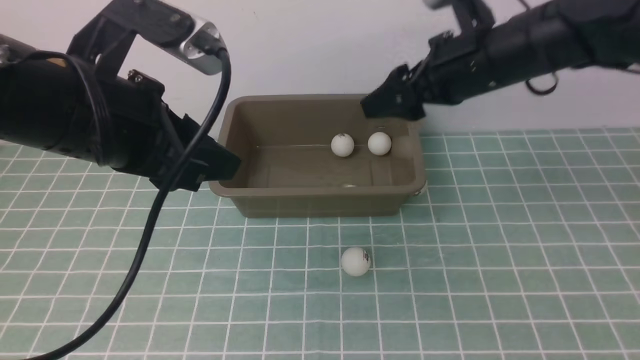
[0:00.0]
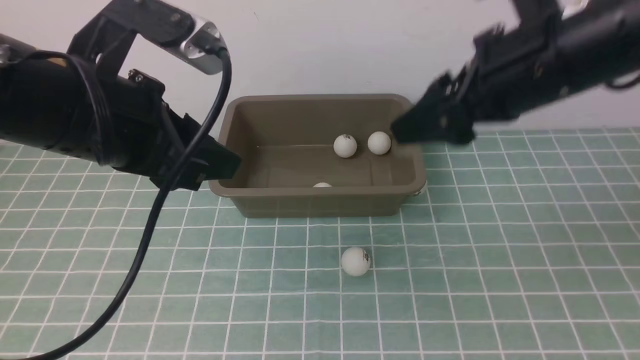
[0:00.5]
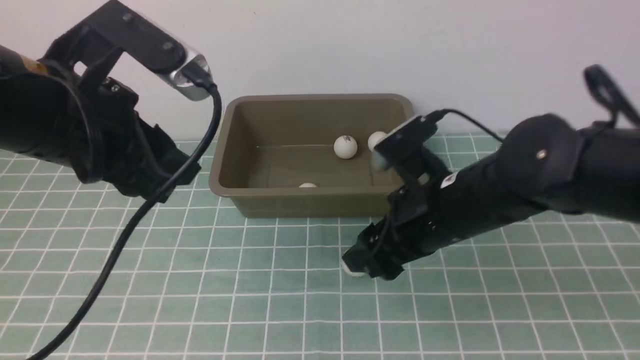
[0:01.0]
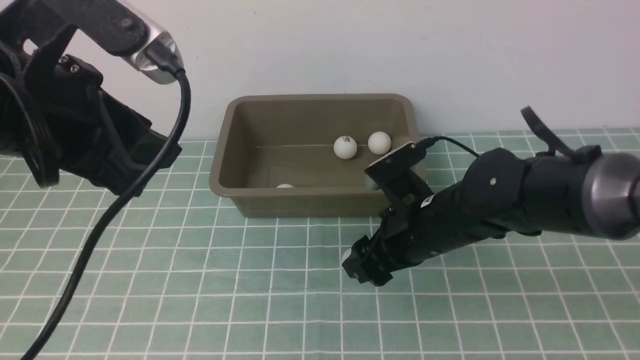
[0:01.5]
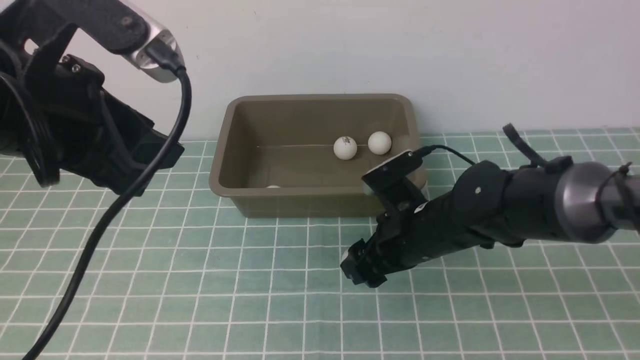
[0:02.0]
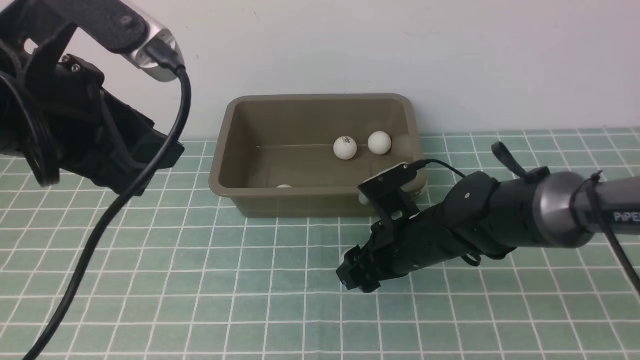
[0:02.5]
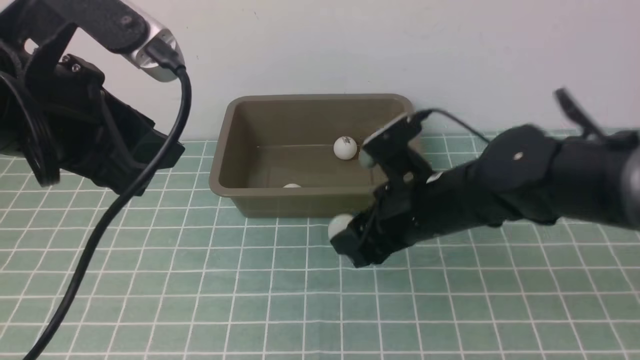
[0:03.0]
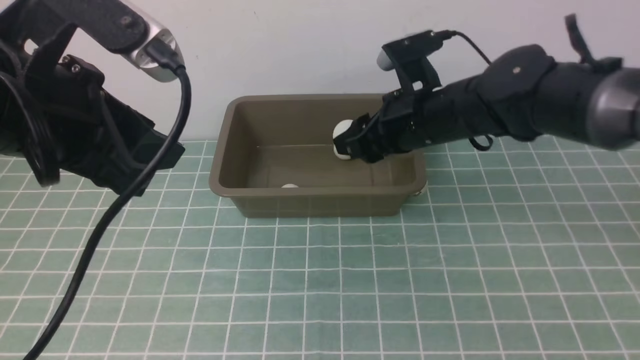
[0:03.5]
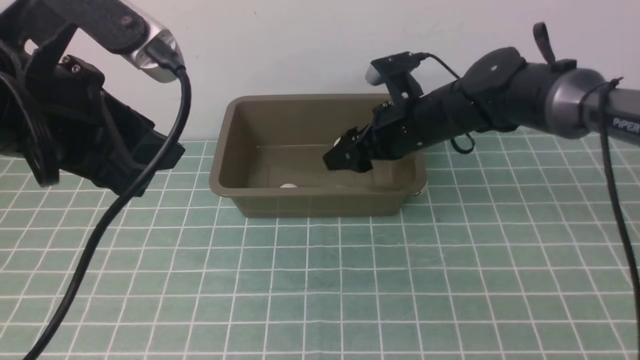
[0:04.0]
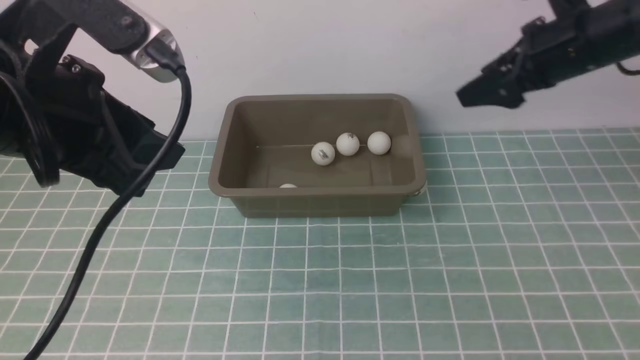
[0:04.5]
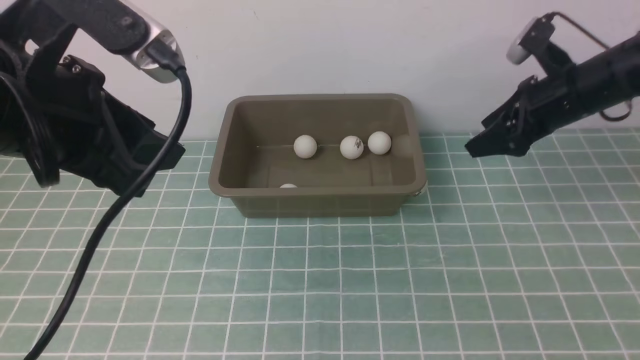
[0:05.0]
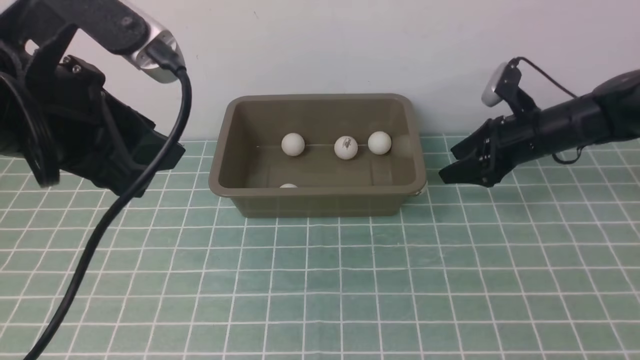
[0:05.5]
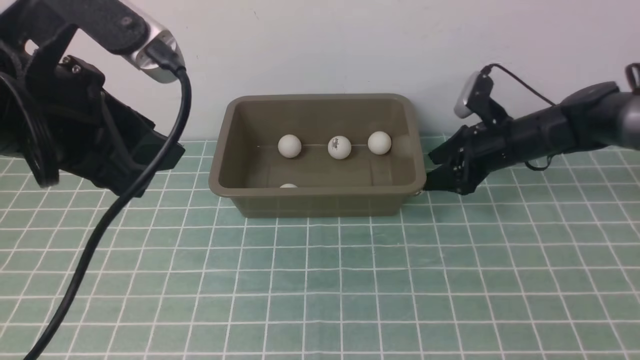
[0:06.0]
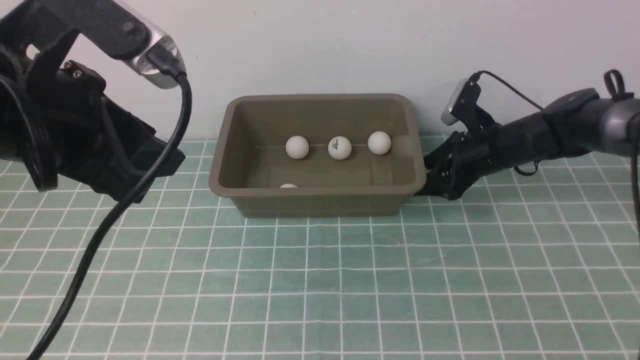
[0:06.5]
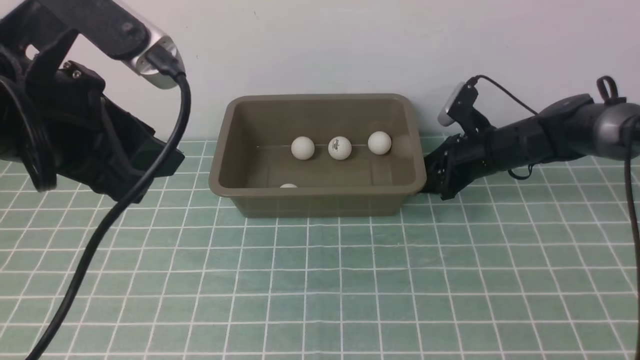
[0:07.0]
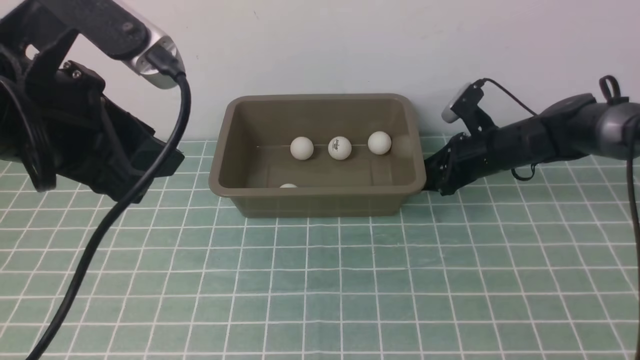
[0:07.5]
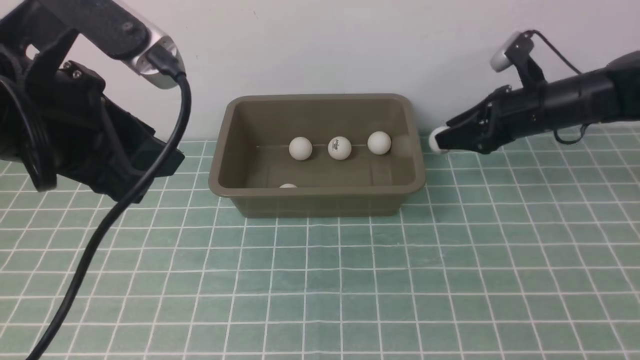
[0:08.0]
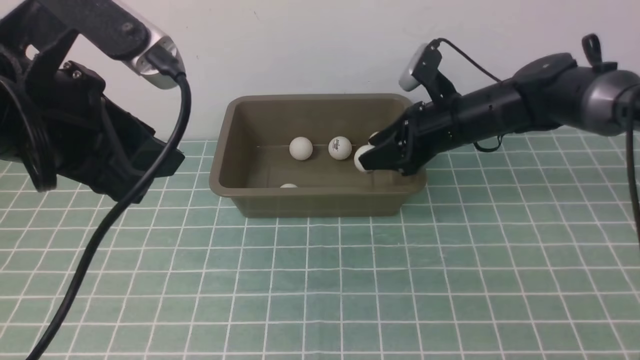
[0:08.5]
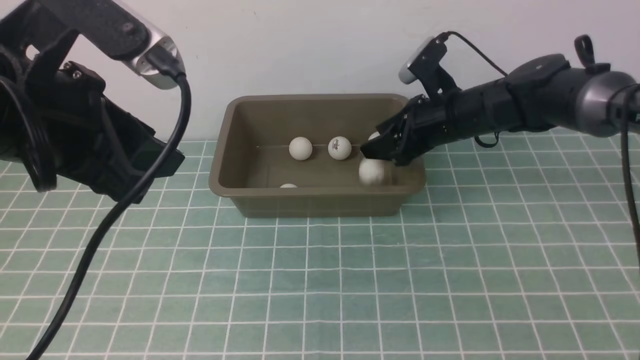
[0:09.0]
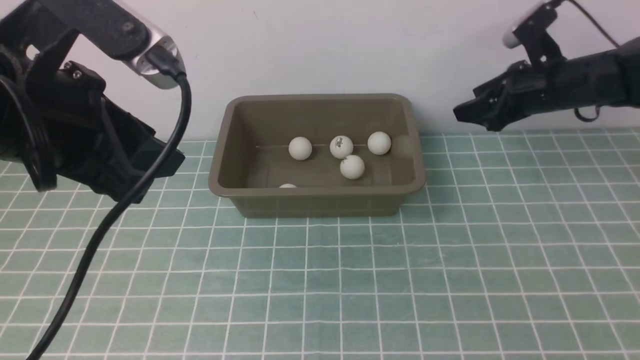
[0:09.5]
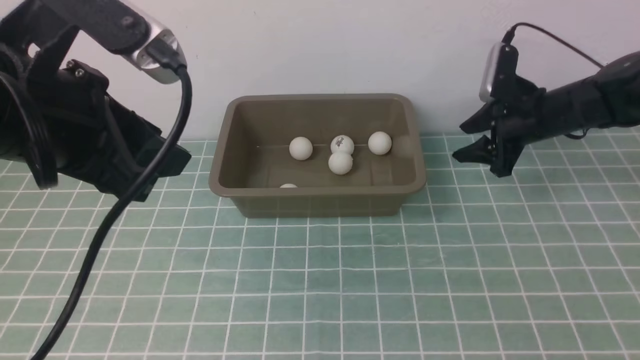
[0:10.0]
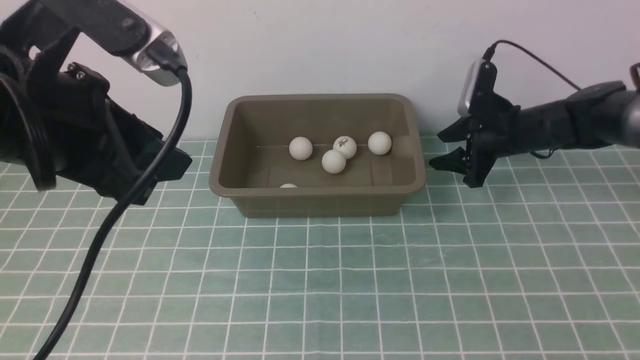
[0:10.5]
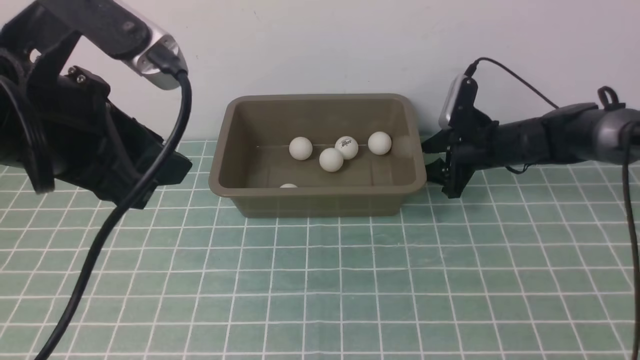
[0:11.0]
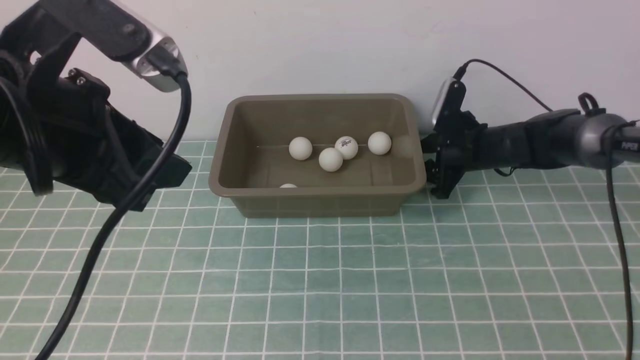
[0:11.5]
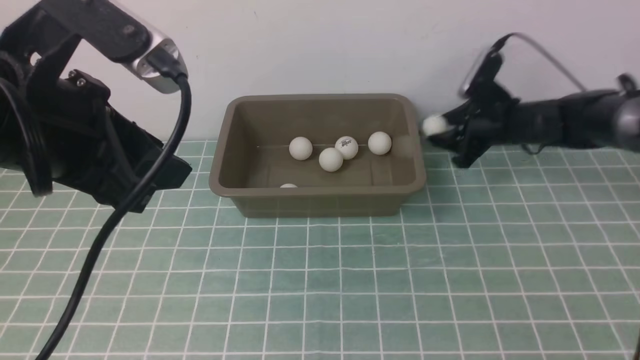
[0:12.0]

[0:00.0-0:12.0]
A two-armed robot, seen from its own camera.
Step, 0.5 to 3.0 s: use the right arm to clamp the table tennis ball closest to it.
Step, 3.5 to 4.0 s: use the right arm to put the table tennis ball into the box.
0.0 to 2.0 s: The right gripper moves downward and backward, about 15 cm.
2.0 to 4.0 s: The right gripper is displaced forward and upward by some 15 cm, and closes, then reopens.
4.0 to 6.0 s: The right gripper heads to the right and downward, covering some 15 cm.
6.0 to 8.0 s: The right gripper changes place by some 5 cm, and closes.
8.0 to 10.0 s: The right gripper moves roughly 10 cm to the left and comes back, and opens.

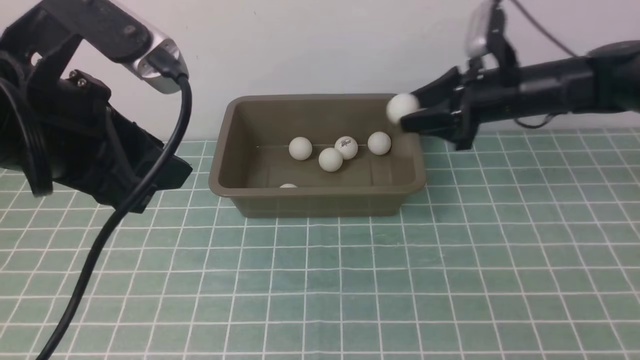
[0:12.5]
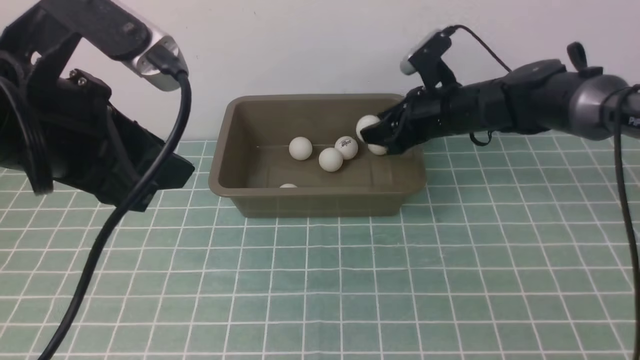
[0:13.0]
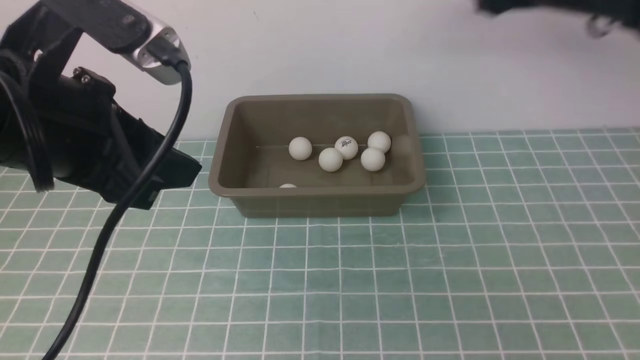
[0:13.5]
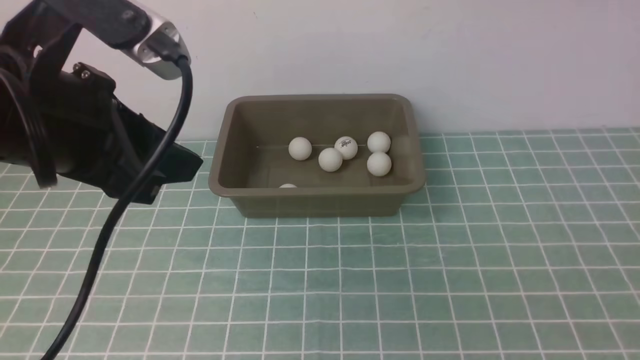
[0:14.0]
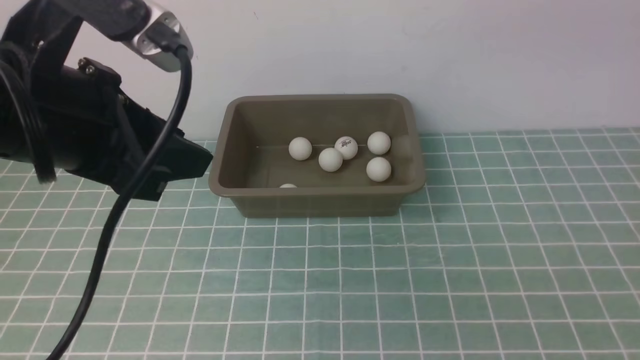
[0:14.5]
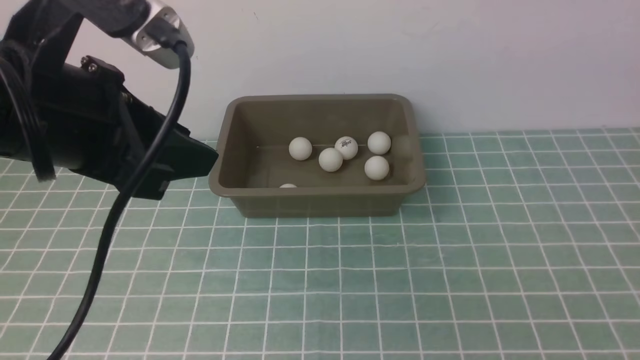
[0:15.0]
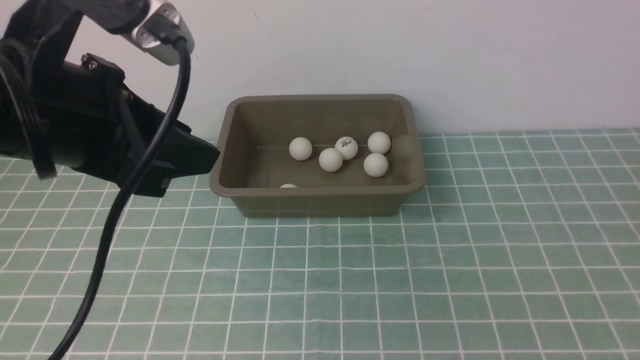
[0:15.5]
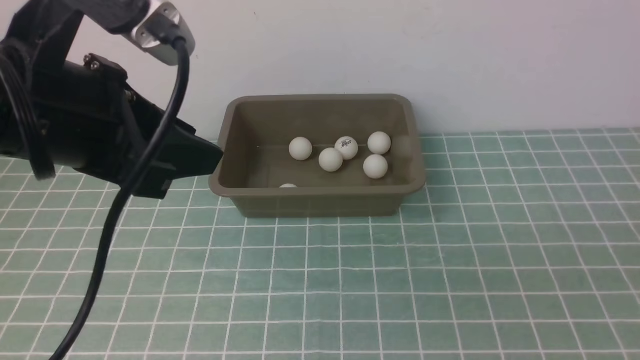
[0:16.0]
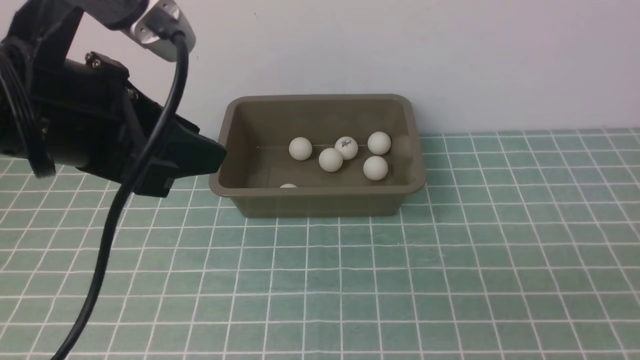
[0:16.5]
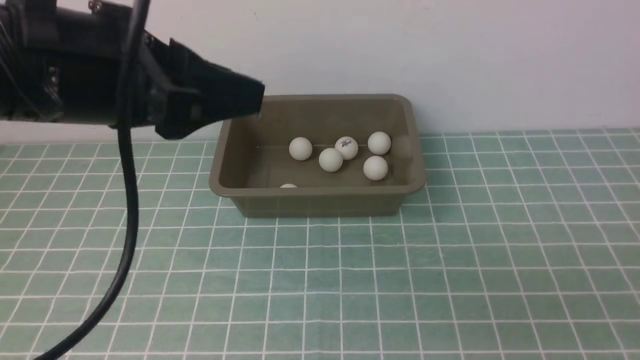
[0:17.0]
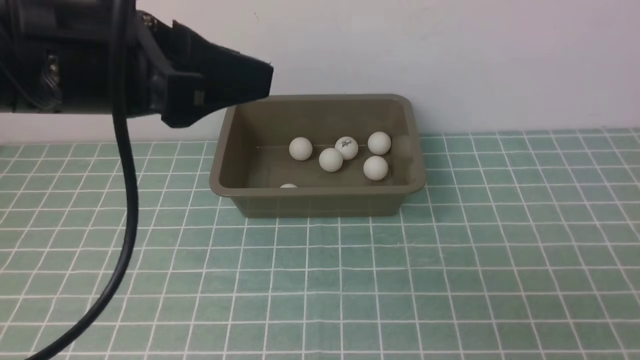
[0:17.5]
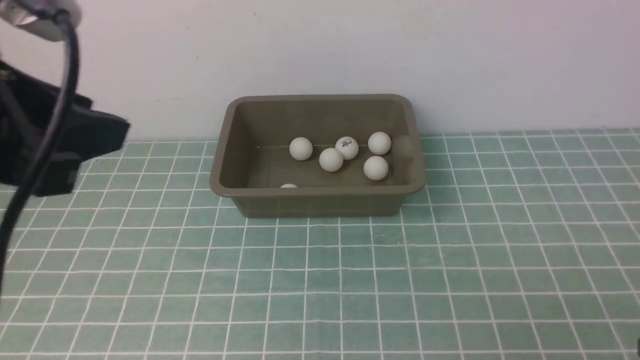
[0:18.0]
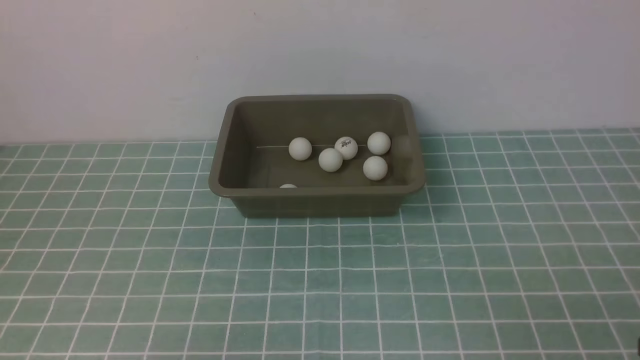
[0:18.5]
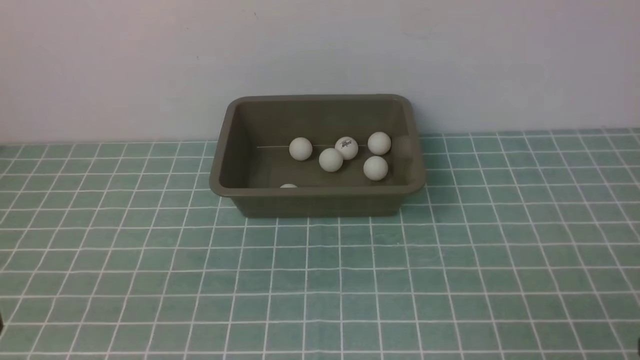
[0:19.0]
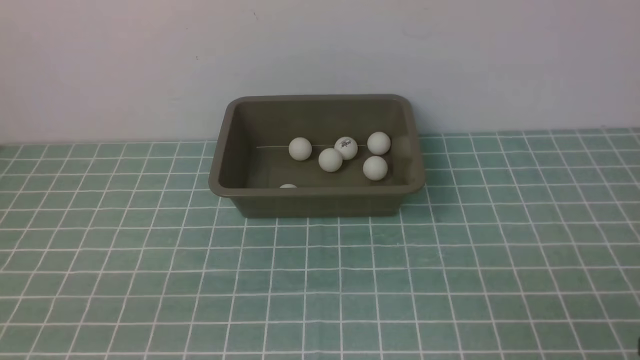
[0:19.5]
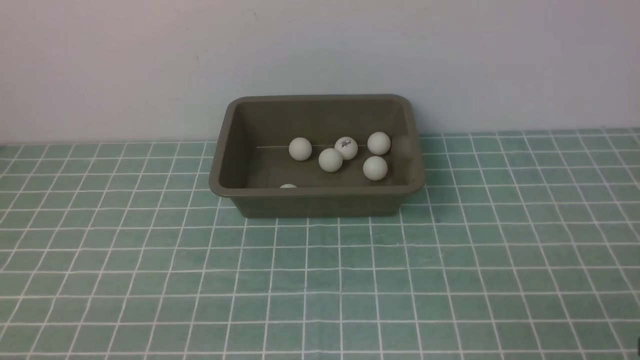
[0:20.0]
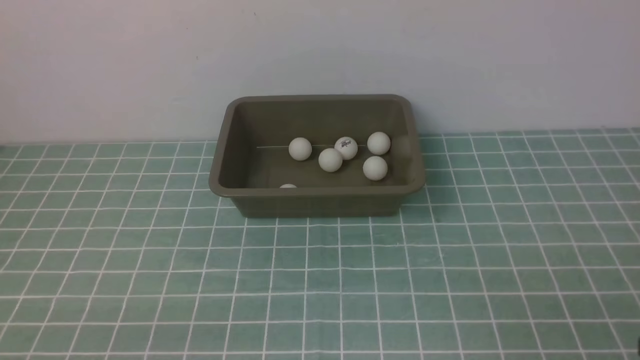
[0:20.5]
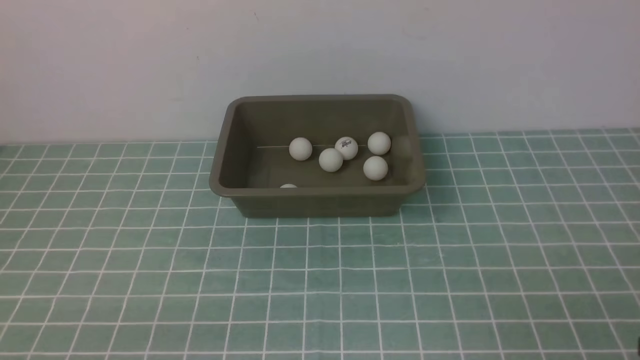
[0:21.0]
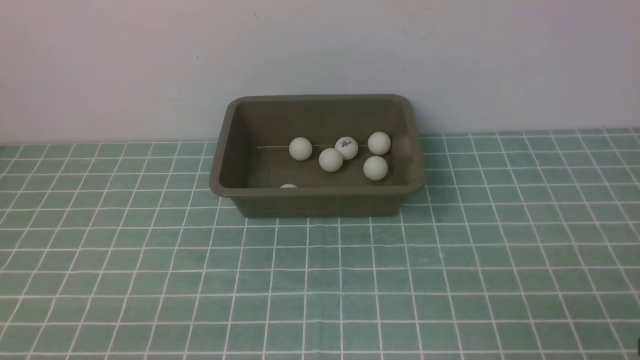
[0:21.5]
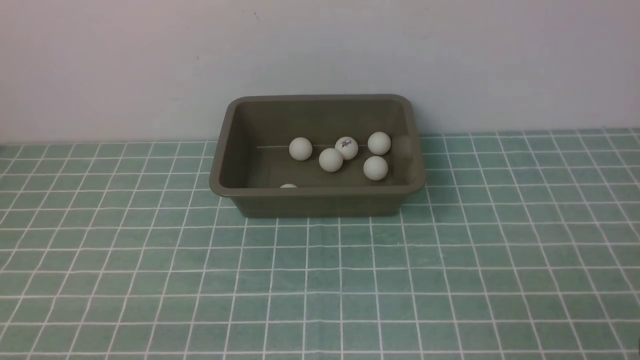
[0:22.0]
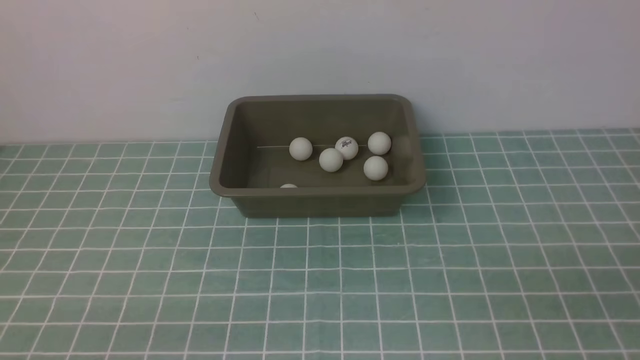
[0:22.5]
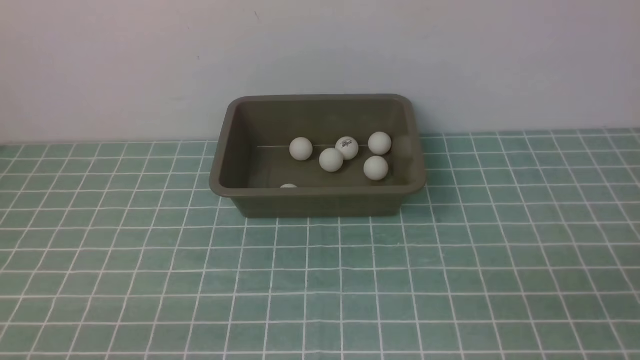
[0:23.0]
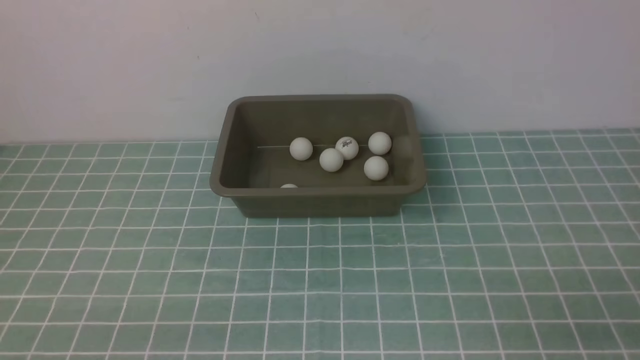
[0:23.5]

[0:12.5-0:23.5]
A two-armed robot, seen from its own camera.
12.5 to 14.5 s: The right gripper is displaced upward, backward and to the right by roughly 40 cm, and opens up.
16.0 to 18.0 s: The left gripper moves backward and to the left, approximately 10 cm.
18.0 to 20.0 s: The left gripper heads downward and backward, covering approximately 25 cm.
20.0 to 21.5 s: Both grippers stay put.
